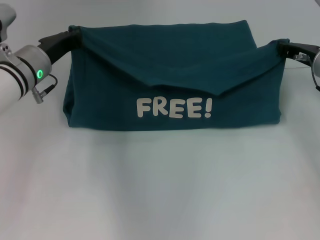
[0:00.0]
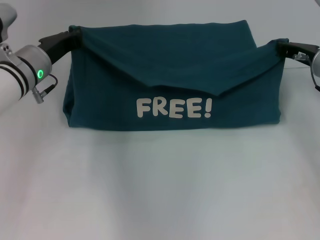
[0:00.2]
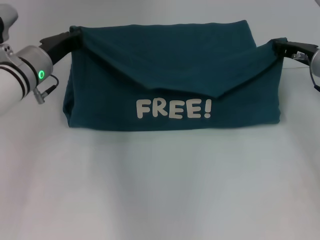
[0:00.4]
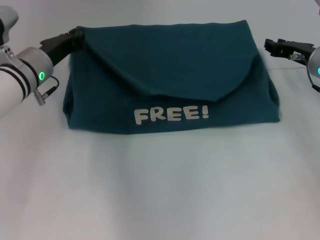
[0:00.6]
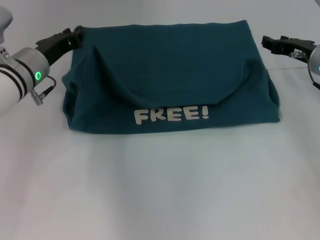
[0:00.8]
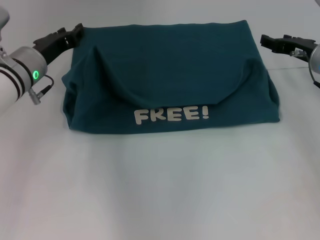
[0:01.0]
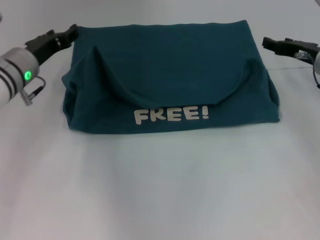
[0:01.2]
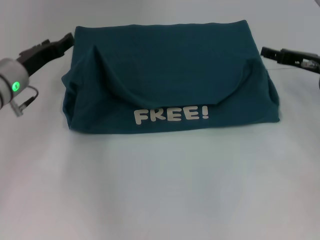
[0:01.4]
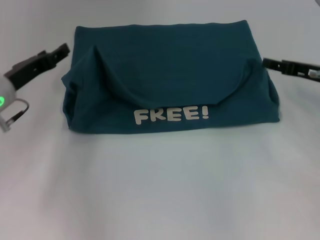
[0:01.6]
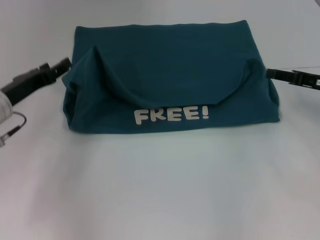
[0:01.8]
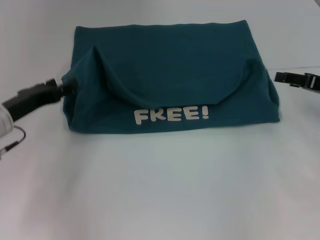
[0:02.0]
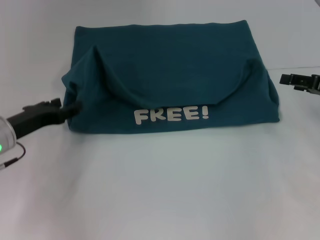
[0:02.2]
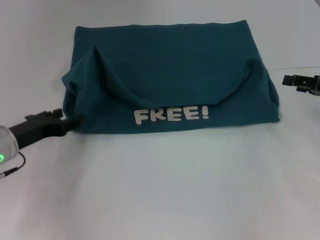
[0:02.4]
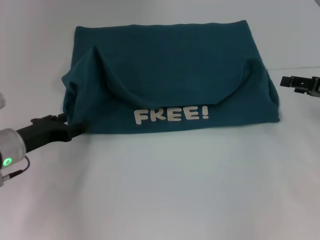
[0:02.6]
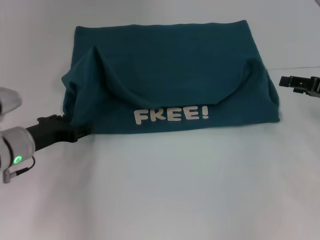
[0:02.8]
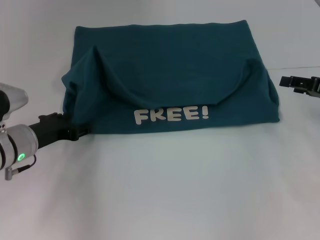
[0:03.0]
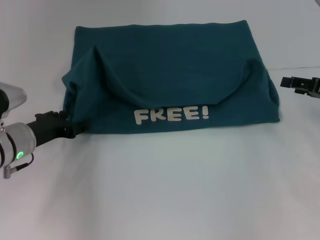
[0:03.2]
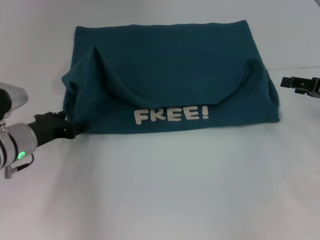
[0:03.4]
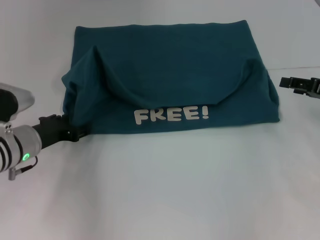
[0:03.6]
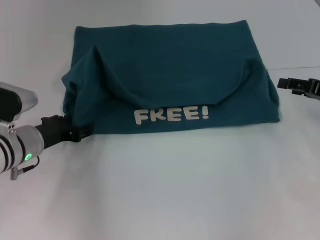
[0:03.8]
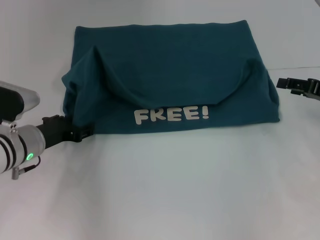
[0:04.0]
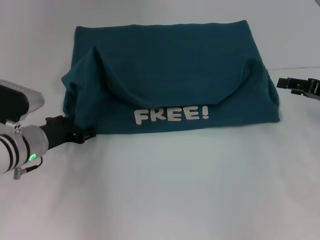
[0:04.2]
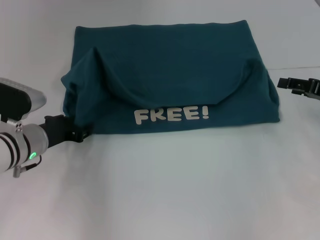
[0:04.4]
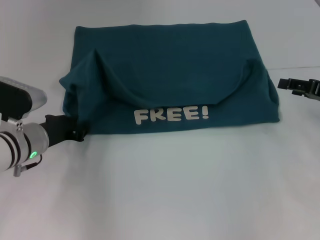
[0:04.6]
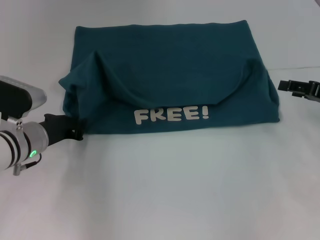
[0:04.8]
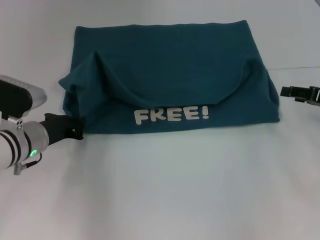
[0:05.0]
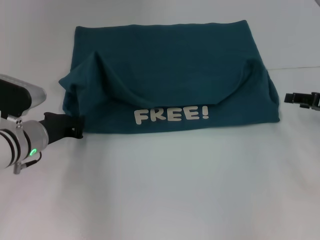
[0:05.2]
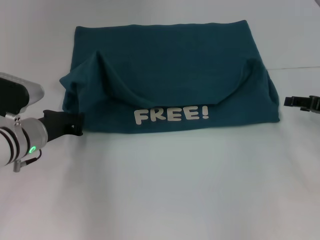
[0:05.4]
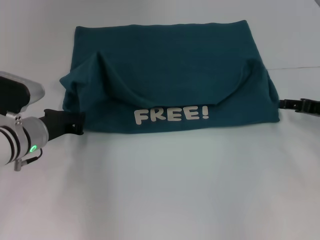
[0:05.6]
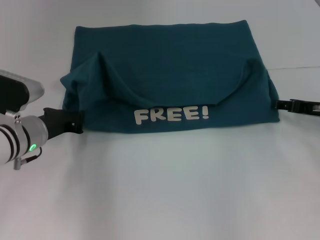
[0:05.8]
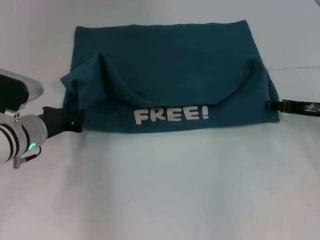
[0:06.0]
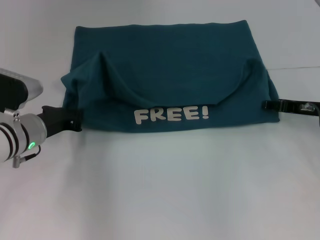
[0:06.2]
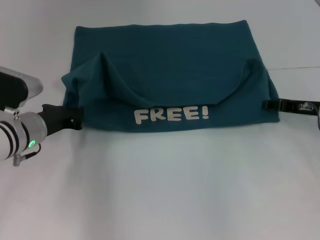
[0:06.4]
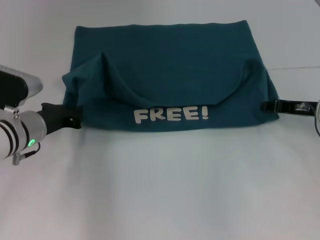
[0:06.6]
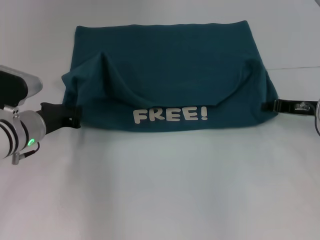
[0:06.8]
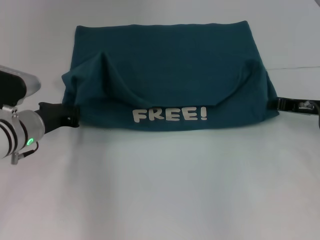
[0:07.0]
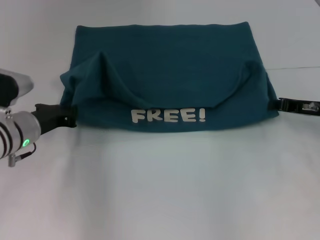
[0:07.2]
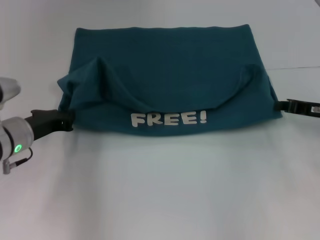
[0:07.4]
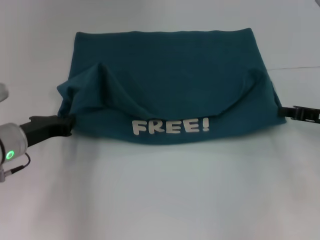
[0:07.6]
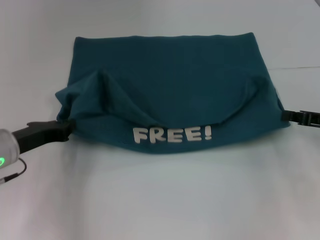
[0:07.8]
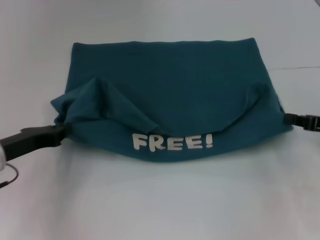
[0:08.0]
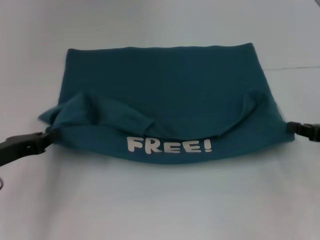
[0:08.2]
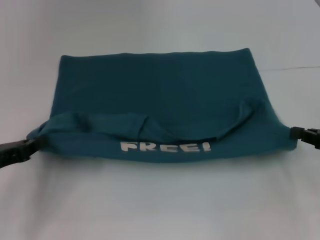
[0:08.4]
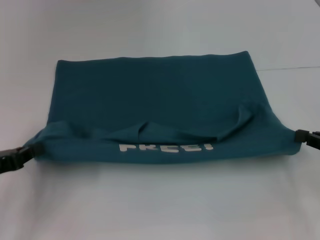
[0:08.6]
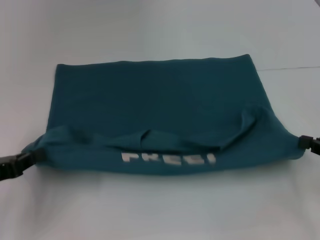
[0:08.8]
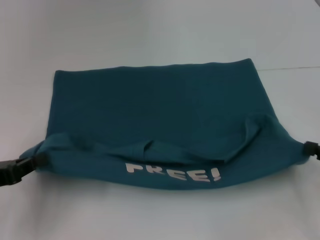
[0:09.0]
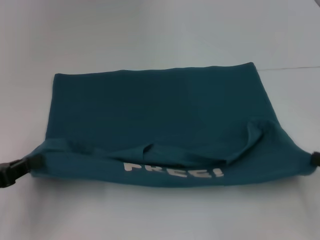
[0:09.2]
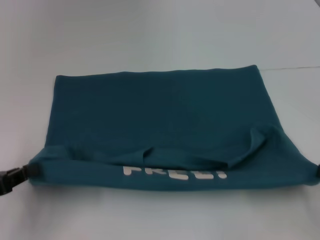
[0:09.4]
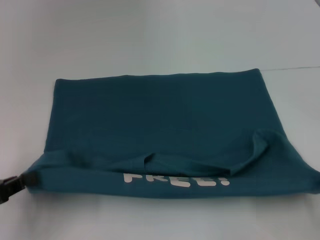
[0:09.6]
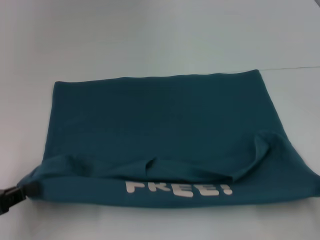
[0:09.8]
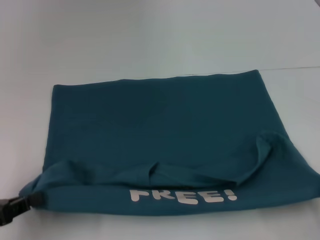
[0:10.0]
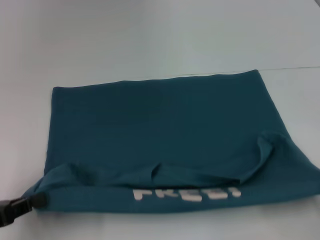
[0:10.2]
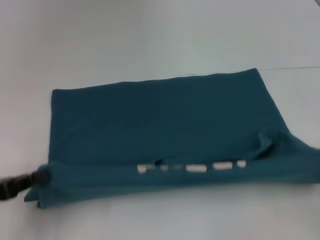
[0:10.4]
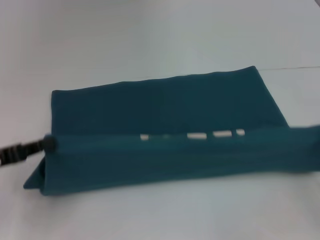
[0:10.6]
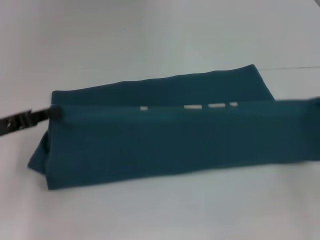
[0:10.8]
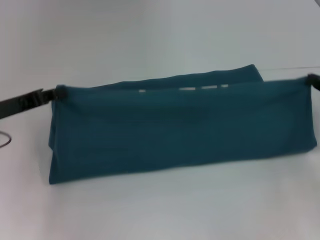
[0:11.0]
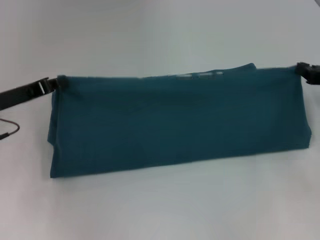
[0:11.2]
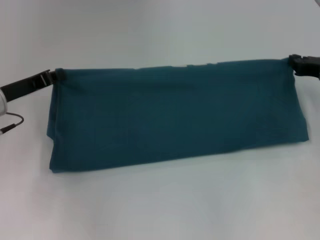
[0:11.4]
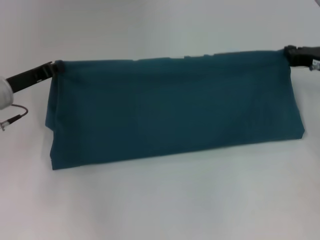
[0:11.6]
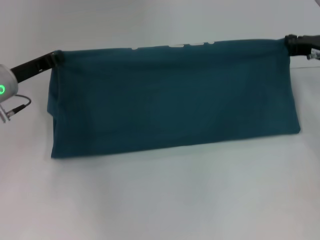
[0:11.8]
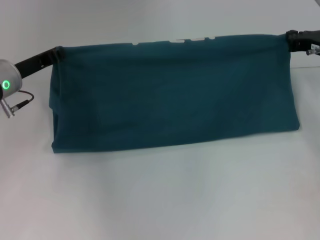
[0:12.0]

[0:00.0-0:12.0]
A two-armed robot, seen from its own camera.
Step, 0:01.0 to 0:10.0: Pull the clothes with your left hand.
Step, 0:01.0 to 0:10.0: Pull the clothes with your right hand.
0:00.0 to 0:01.6: The right gripper opens, while the left gripper shifts roughly 5 cm to the left, and opens.
0:01.6 to 0:03.0: The right gripper shifts by some 5 cm. The left gripper shifts by approximately 5 cm.
0:03.0 to 0:04.4: The grippers make only small movements.
0:04.4 to 0:06.0: The left gripper closes up. Meanwhile the right gripper shifts by about 5 cm.
0:06.0 to 0:07.6: The right gripper closes.
0:07.6 to 0:09.0: The right gripper is displaced backward by approximately 10 cm; the left gripper shifts some 15 cm backward and to the left.
0:10.4 to 0:12.0: The left gripper shifts approximately 20 cm forward and to the right. The right gripper heads forward, covering roughly 25 cm.

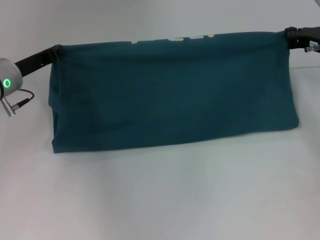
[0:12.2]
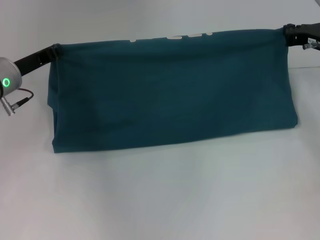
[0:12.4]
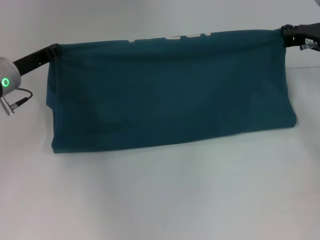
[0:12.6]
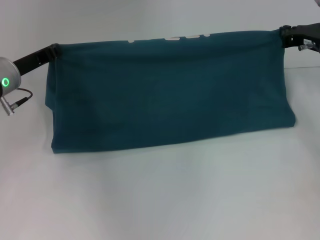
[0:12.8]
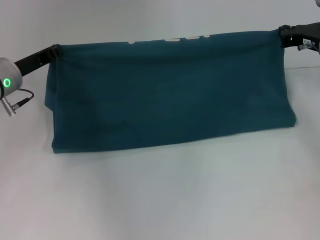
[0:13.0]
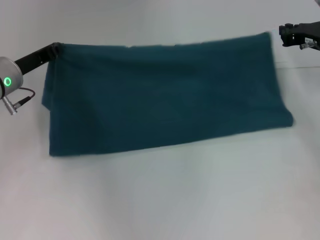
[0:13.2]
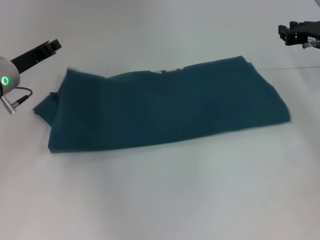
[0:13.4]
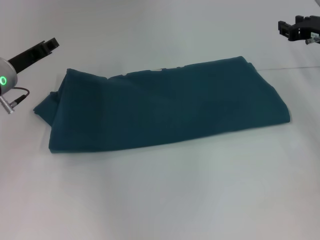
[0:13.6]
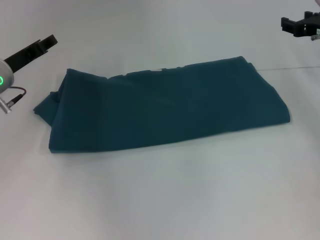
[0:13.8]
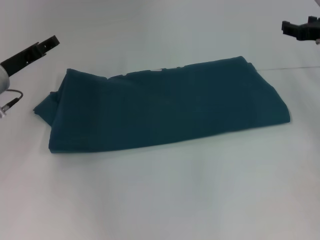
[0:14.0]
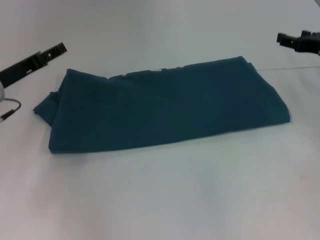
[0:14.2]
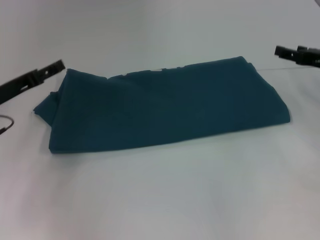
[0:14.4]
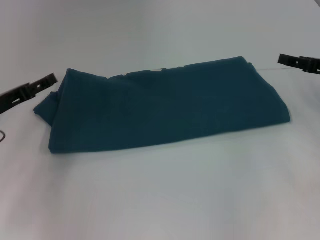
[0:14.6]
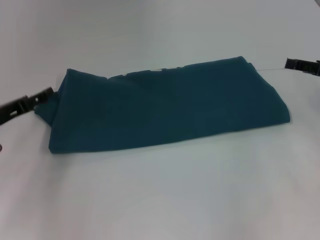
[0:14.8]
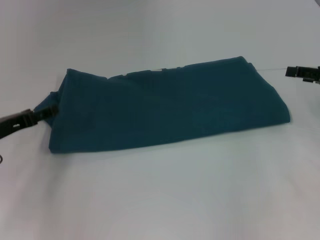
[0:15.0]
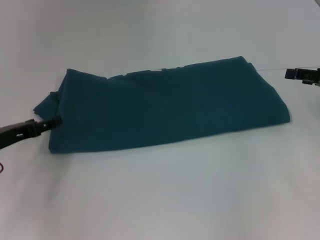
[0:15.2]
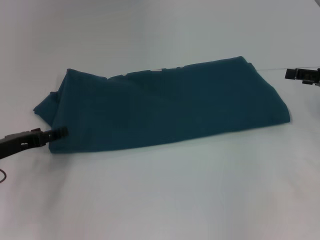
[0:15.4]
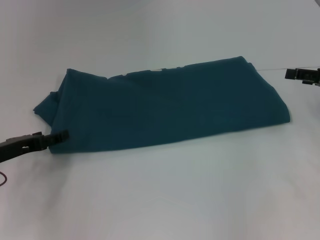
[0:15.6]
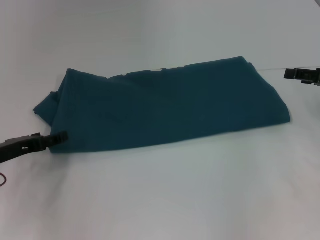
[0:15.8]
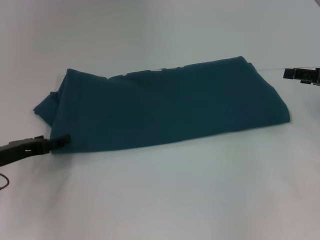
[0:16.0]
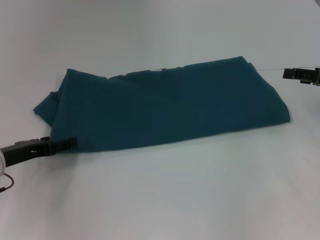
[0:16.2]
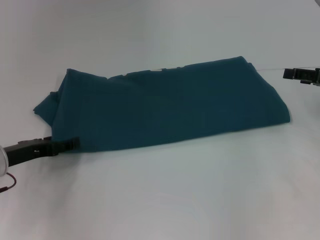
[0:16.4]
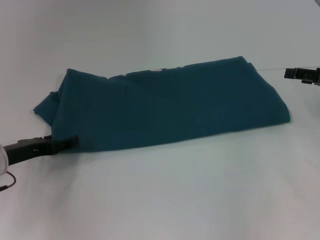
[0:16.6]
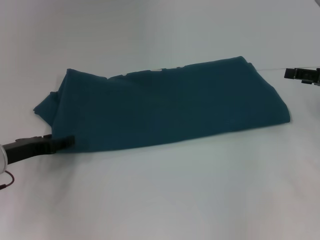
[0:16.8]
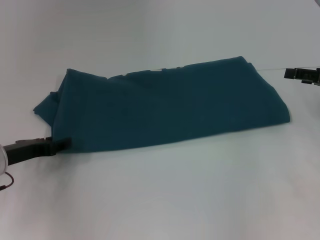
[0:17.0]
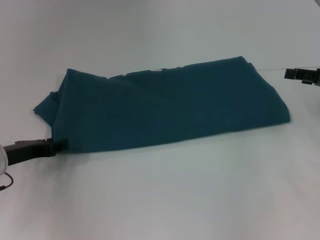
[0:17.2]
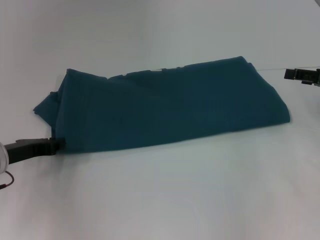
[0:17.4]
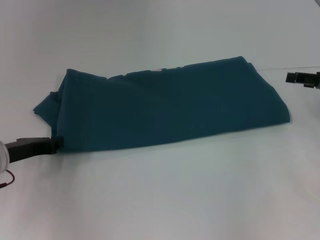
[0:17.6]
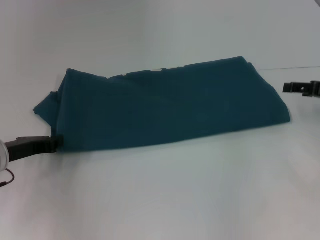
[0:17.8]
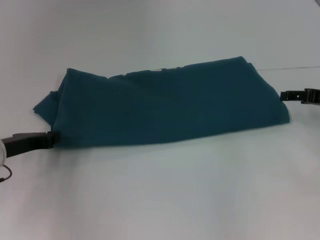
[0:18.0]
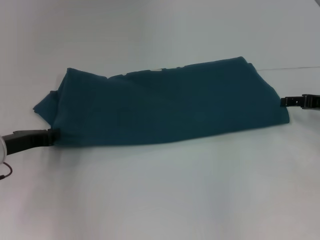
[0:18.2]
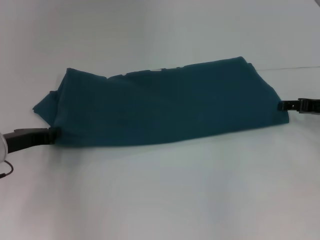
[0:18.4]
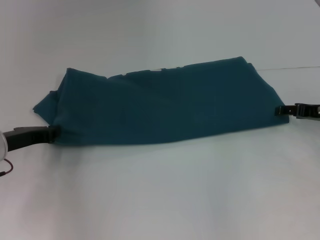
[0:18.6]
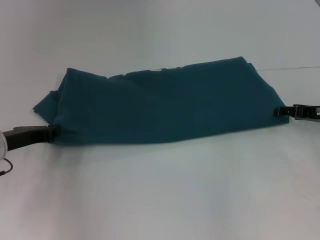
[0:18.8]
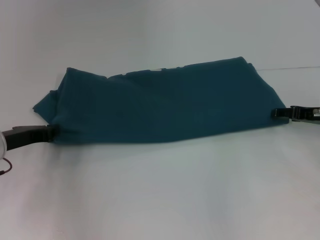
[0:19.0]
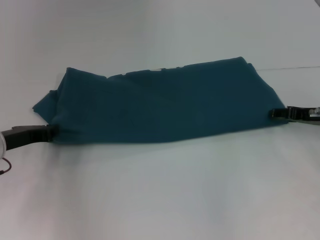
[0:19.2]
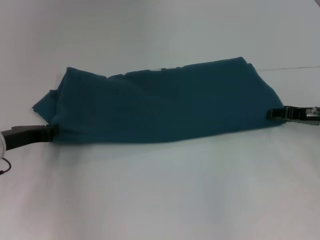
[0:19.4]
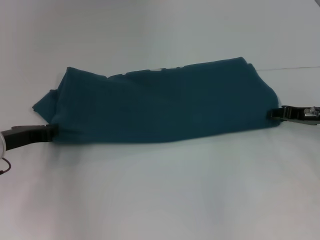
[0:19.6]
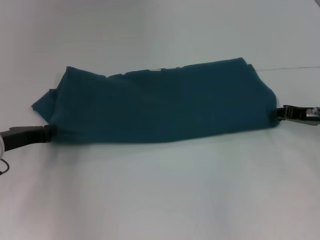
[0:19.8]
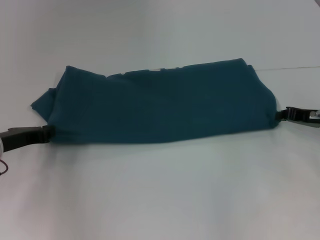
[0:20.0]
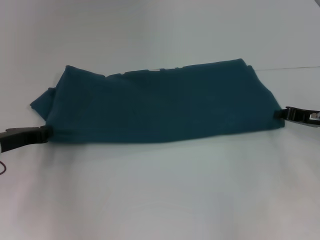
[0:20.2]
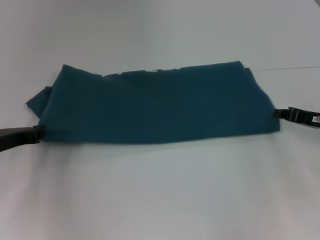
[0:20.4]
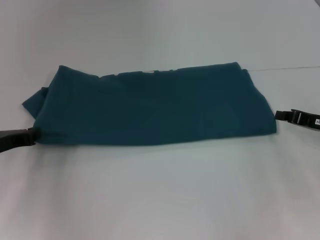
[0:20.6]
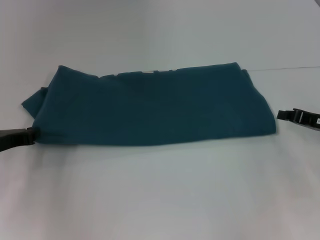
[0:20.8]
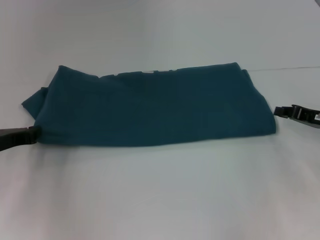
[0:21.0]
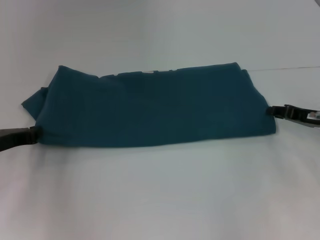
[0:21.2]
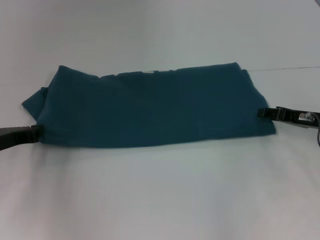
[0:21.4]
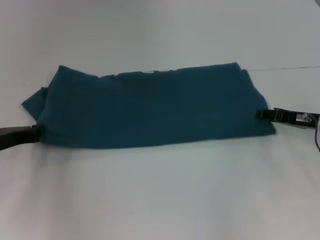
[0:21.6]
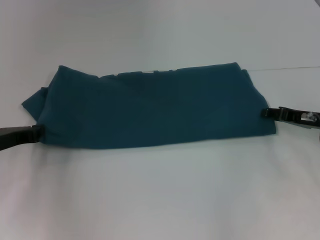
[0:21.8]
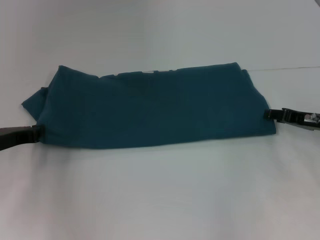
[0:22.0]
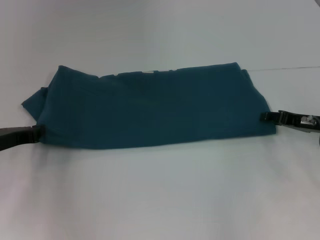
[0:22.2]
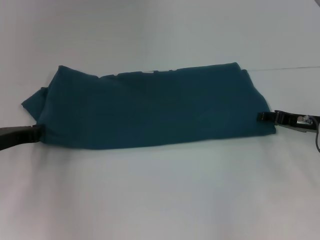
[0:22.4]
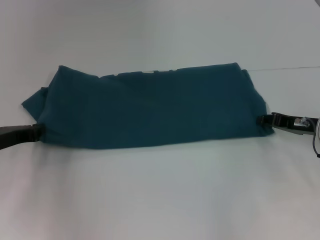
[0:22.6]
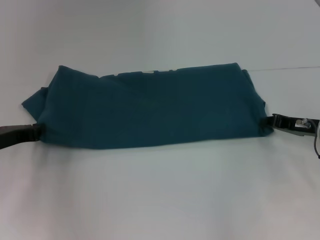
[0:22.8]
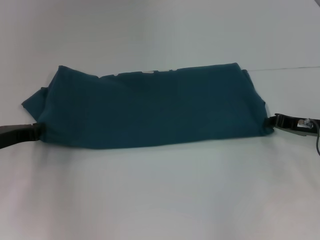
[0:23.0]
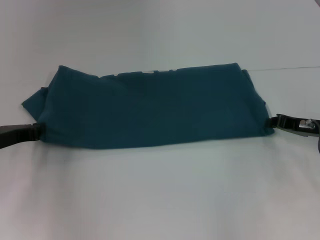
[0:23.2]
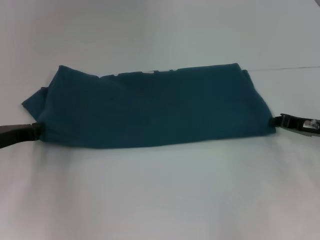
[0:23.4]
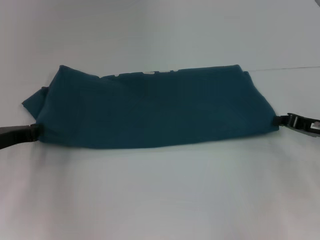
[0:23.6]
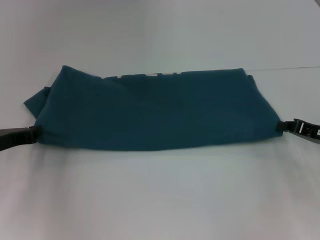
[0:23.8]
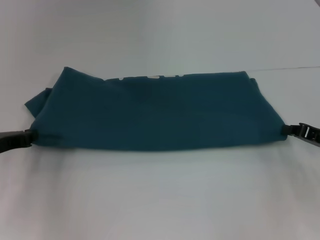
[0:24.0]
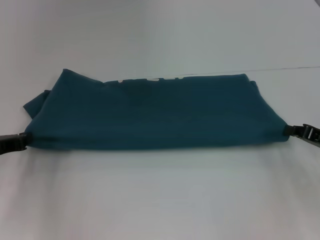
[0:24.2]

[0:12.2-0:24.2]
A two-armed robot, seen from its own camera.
0:12.2 to 0:13.8: The left gripper opens; the right gripper opens its fingers.
0:13.8 to 0:15.2: The right gripper moves backward, some 10 cm, and opens. Meanwhile the left gripper goes about 10 cm backward and downward, and opens its fingers.
0:15.2 to 0:16.6: There are only small adjustments of the grippers.
0:16.6 to 0:18.2: The left gripper closes its fingers.
0:18.2 to 0:19.8: The right gripper closes.
0:19.8 to 0:22.6: The grippers make only small movements.
0:22.6 to 0:24.2: The right gripper moves backward, some 5 cm, and closes.
